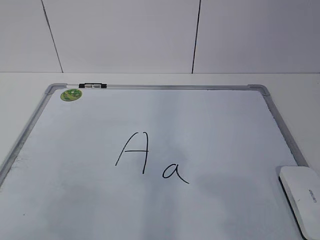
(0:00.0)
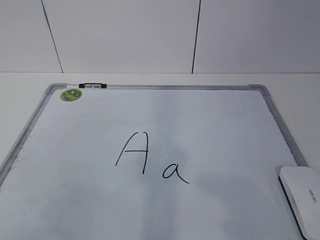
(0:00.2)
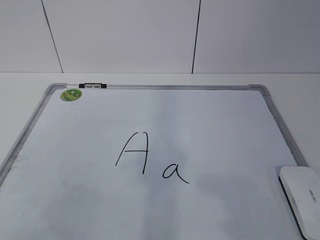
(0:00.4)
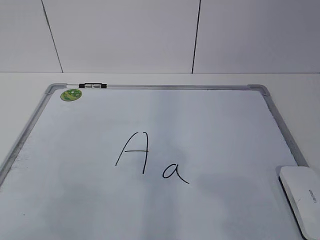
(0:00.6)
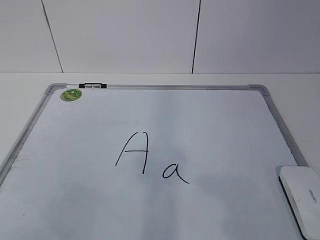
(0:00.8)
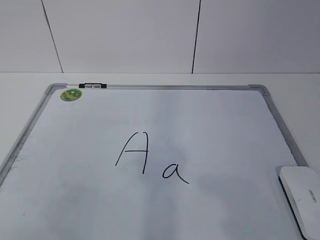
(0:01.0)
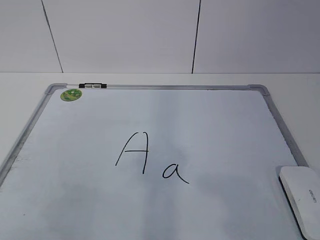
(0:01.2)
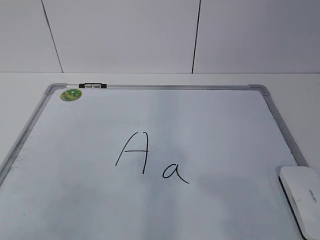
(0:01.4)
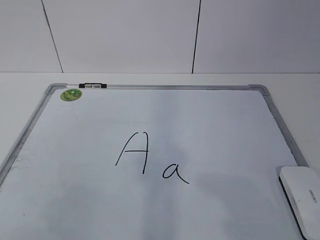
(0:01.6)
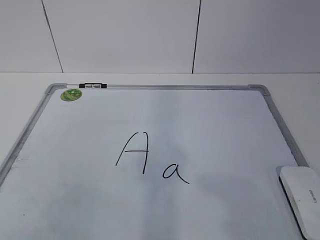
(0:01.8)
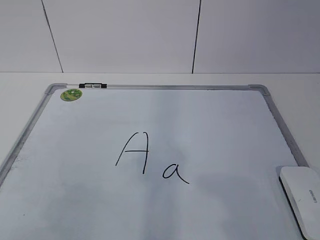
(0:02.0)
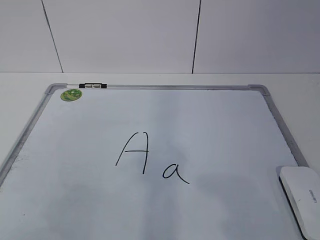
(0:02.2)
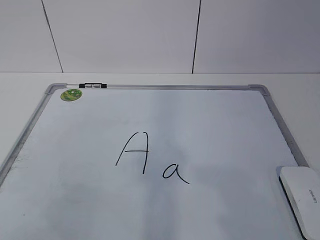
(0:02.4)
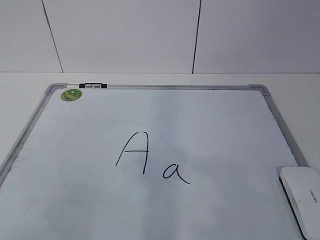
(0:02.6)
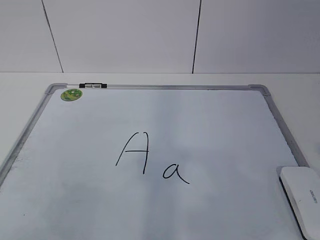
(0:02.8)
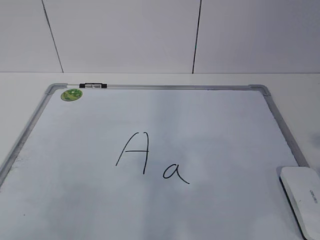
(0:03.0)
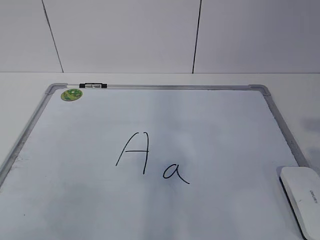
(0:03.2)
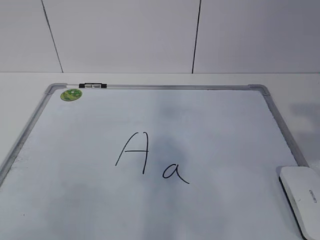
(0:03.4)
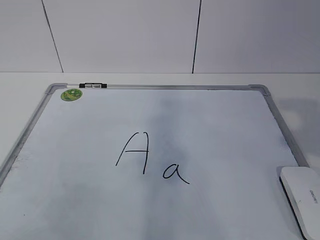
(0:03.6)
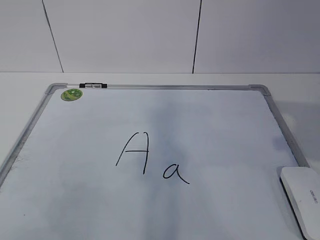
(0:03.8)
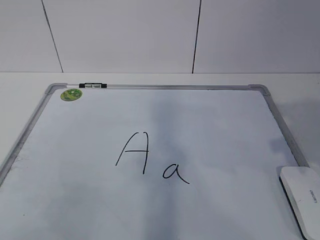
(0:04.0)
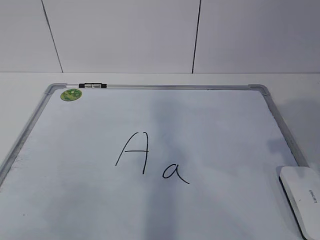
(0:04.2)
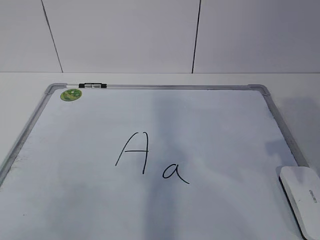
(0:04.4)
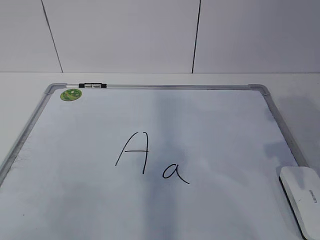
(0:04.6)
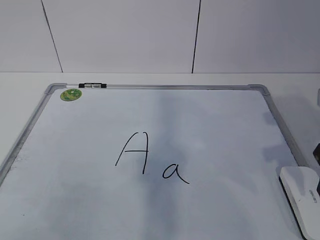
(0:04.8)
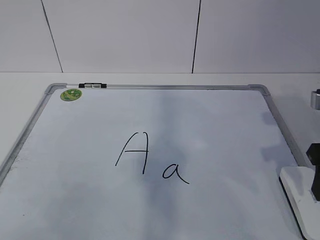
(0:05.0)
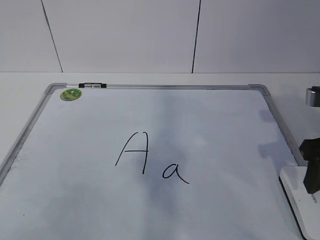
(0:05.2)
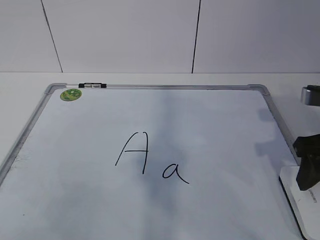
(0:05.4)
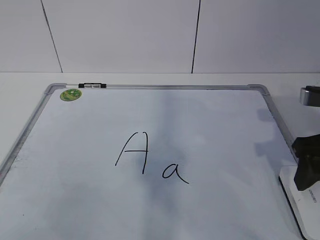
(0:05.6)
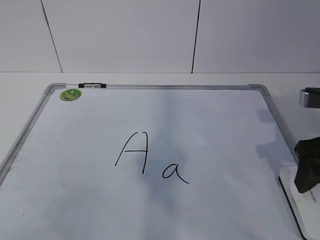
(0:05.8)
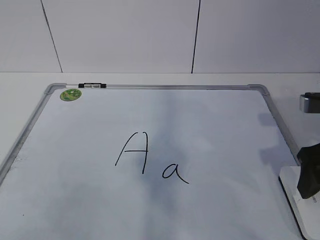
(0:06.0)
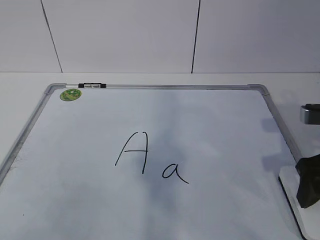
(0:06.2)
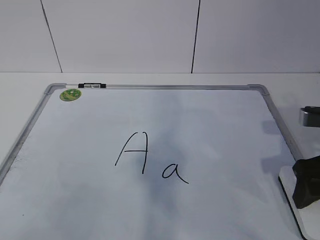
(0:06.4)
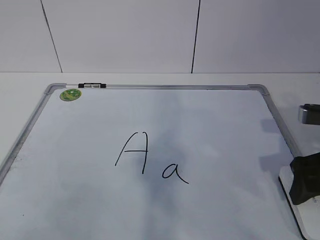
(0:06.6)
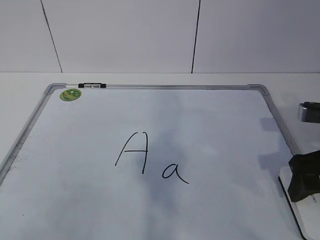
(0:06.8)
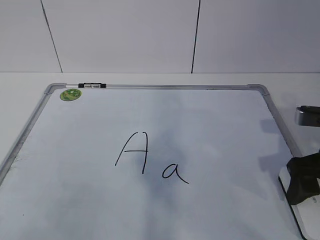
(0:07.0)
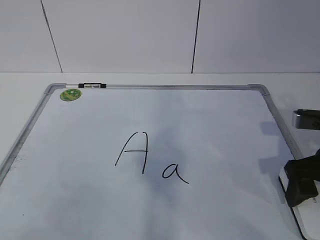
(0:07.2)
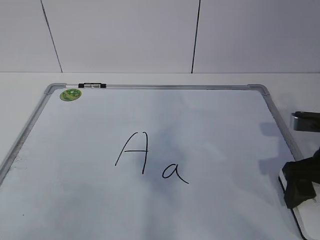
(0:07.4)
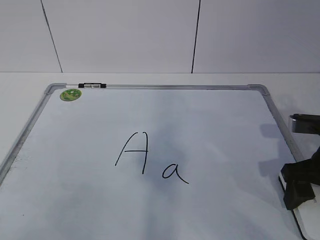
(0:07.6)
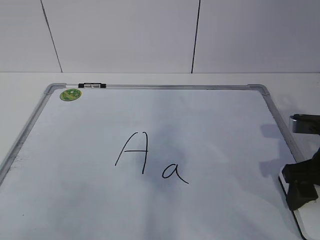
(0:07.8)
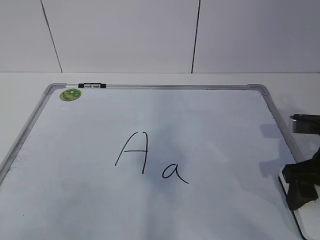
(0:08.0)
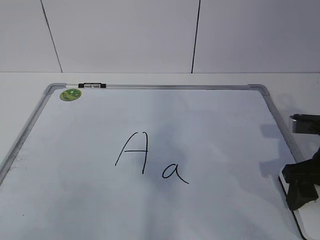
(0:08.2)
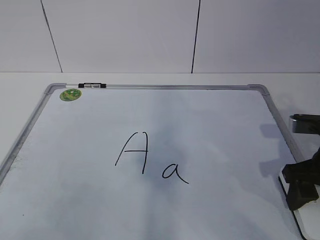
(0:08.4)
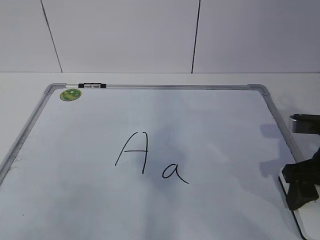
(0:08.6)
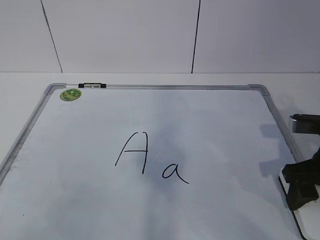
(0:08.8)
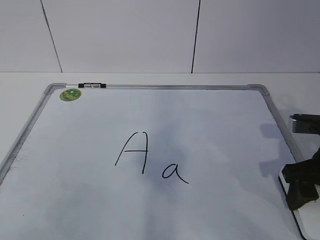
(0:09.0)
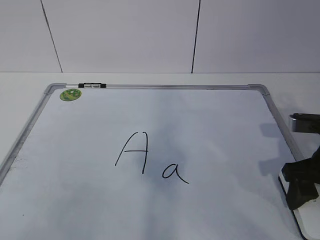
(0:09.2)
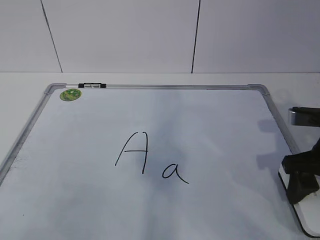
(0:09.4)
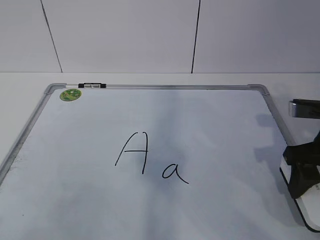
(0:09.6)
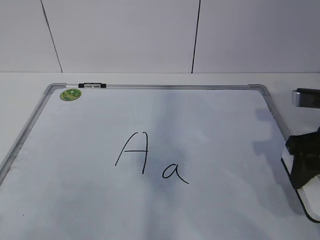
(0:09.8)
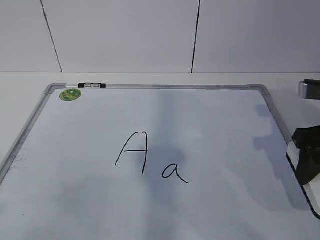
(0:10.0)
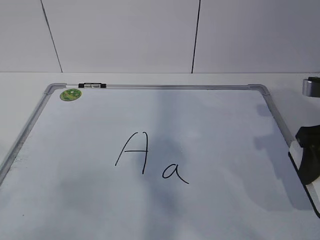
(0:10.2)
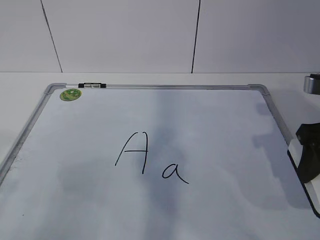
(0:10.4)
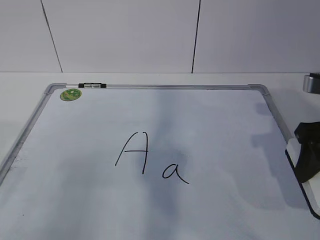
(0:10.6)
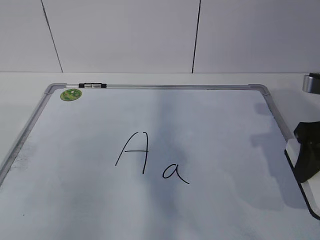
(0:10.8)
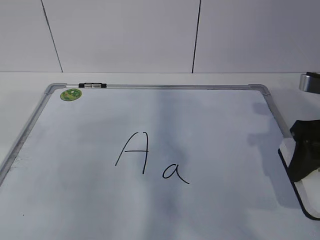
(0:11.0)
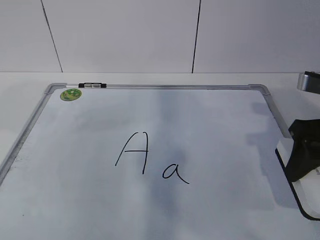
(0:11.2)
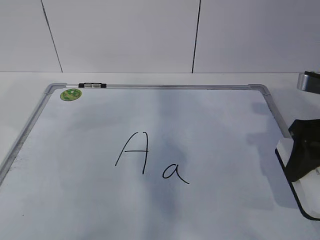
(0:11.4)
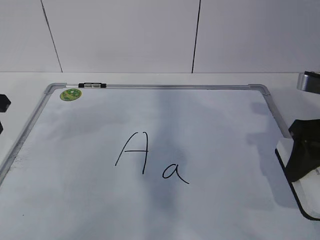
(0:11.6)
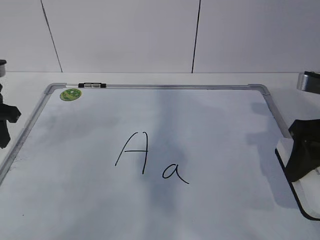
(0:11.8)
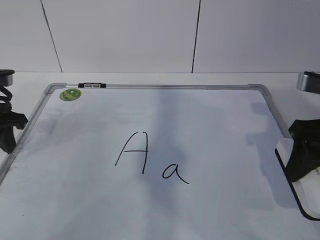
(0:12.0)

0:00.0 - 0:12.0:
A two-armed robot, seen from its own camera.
Task of the whole recording: pick up the eraser on the blackboard and erase the letter "a".
Step, 0:00.0 - 0:07.4: Grab the eraser with your right hand.
0:03.0 - 0:04.4: The right gripper heads forward, covering some 15 cm.
0:04.4 - 0:06.0: The right gripper moves downward, approximately 5 cm, and opens its fingers.
0:06.0 - 0:07.6: The grippers stay close to where they were, moving slightly.
0:09.0 - 0:10.4: The right gripper travels upward by about 5 cm.
0:10.4 - 0:12.0: The left gripper moves forward, some 25 cm.

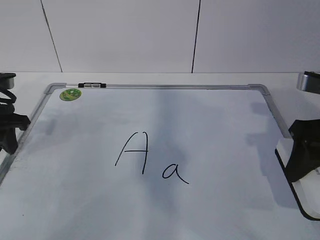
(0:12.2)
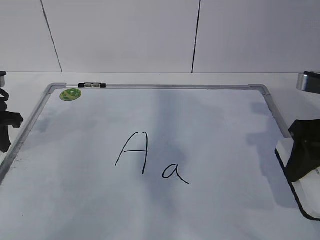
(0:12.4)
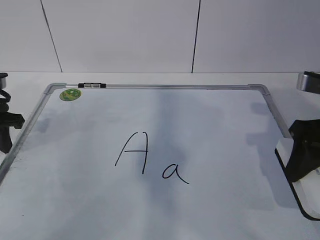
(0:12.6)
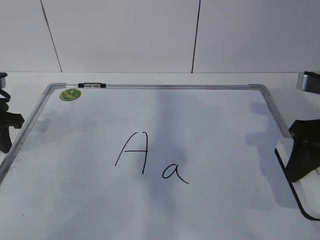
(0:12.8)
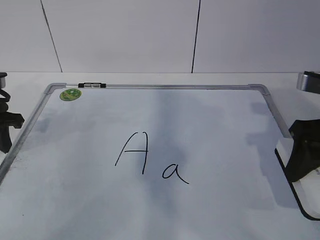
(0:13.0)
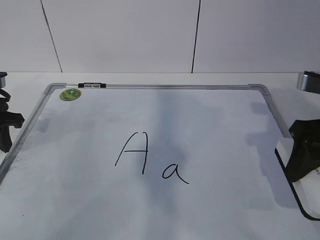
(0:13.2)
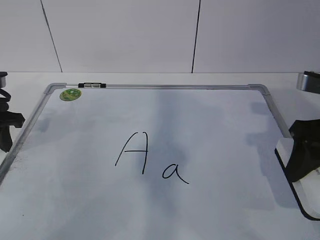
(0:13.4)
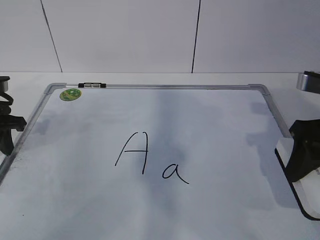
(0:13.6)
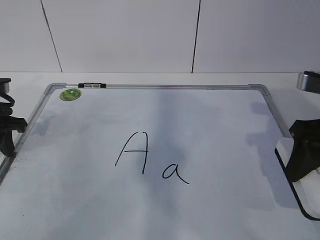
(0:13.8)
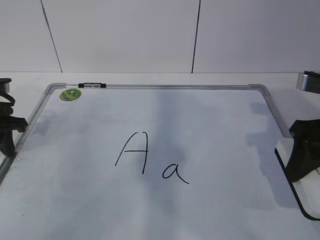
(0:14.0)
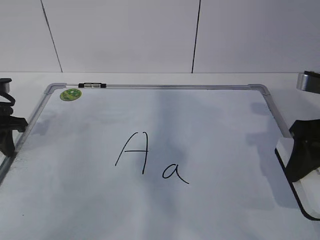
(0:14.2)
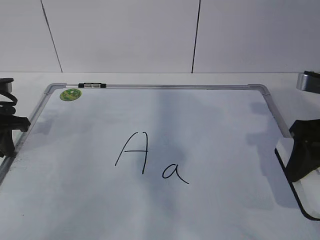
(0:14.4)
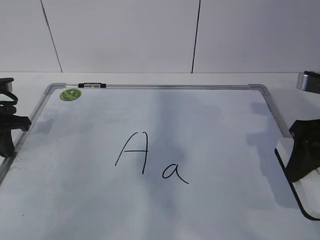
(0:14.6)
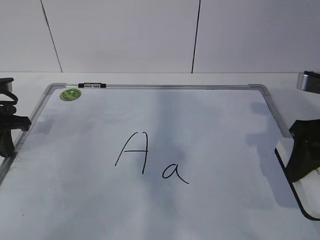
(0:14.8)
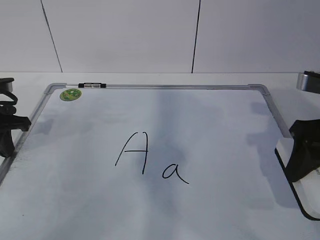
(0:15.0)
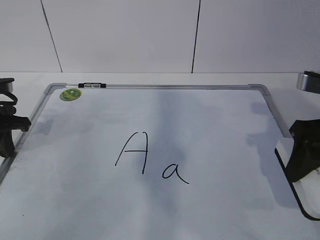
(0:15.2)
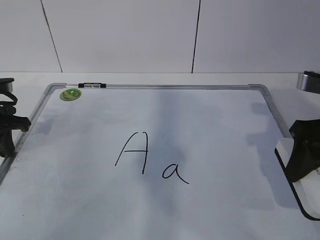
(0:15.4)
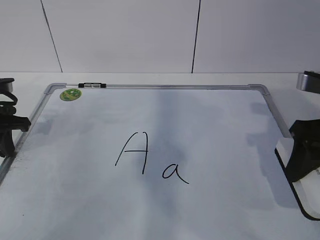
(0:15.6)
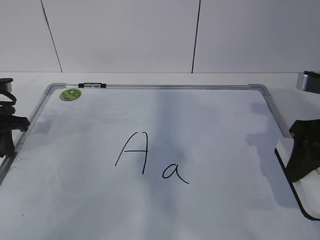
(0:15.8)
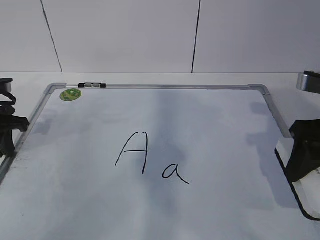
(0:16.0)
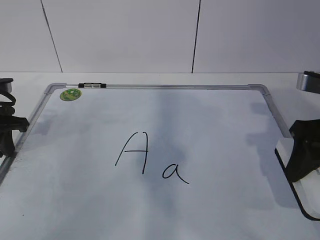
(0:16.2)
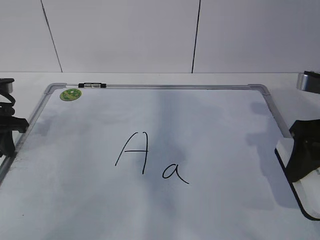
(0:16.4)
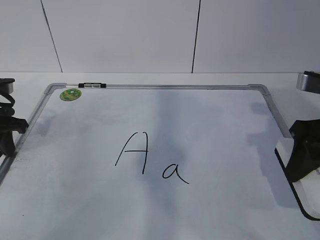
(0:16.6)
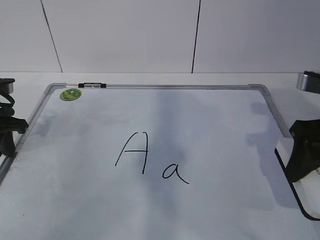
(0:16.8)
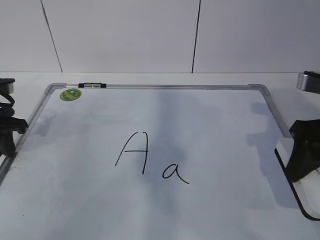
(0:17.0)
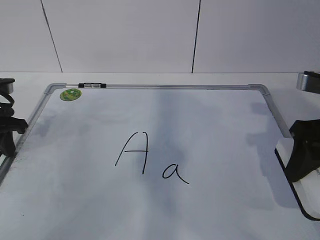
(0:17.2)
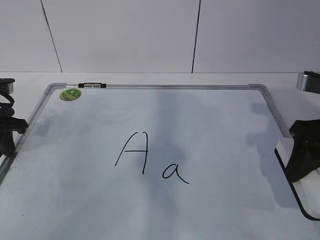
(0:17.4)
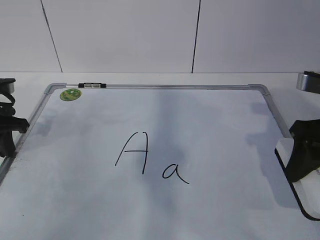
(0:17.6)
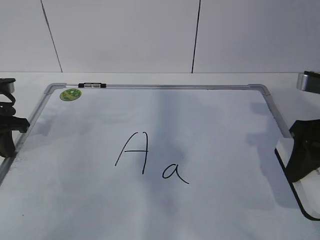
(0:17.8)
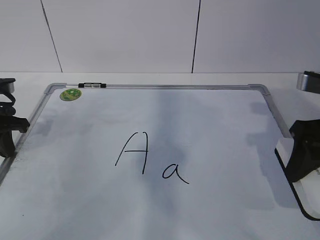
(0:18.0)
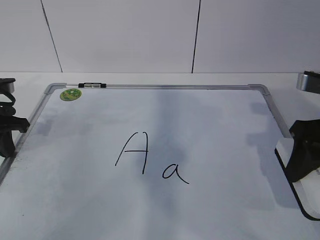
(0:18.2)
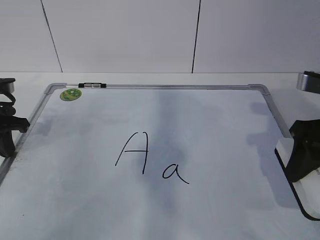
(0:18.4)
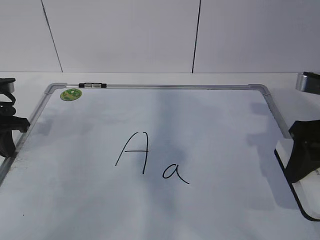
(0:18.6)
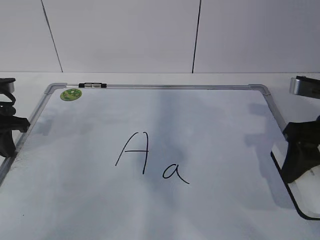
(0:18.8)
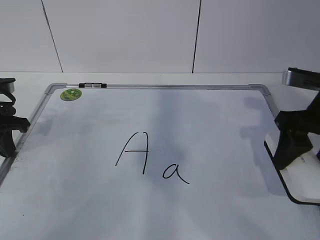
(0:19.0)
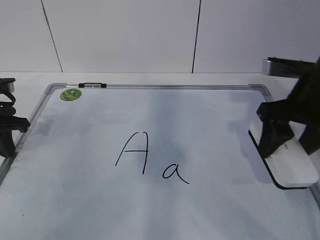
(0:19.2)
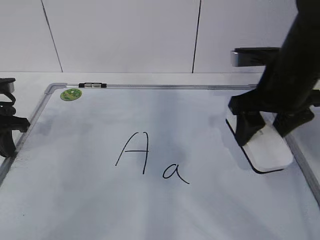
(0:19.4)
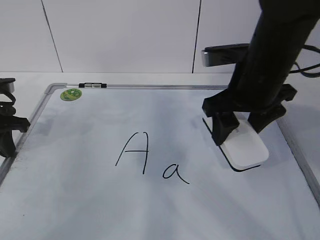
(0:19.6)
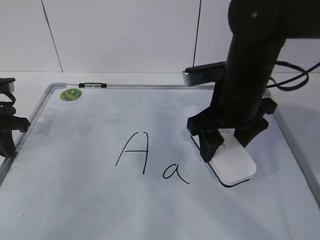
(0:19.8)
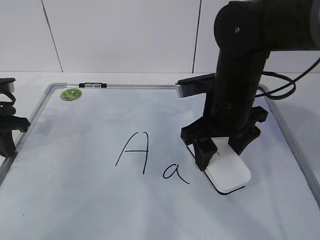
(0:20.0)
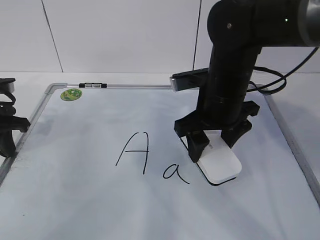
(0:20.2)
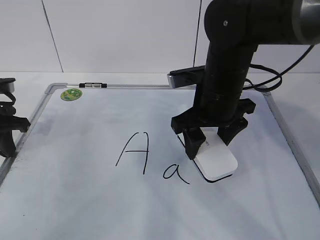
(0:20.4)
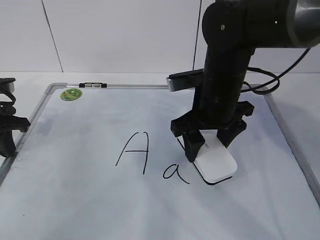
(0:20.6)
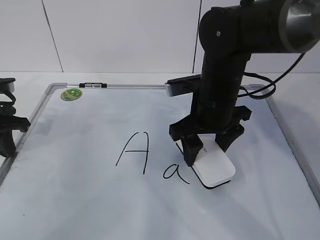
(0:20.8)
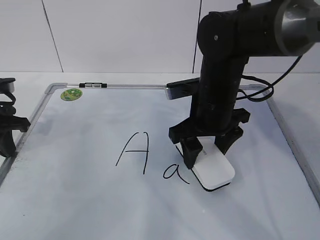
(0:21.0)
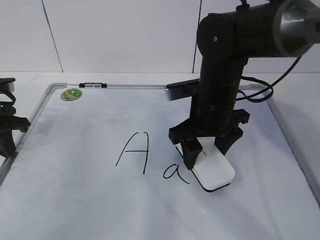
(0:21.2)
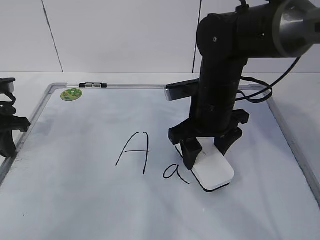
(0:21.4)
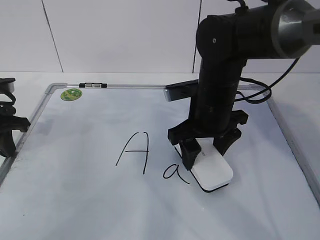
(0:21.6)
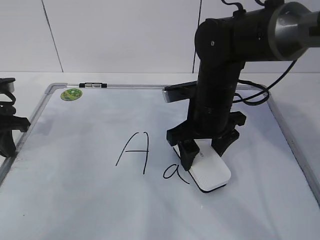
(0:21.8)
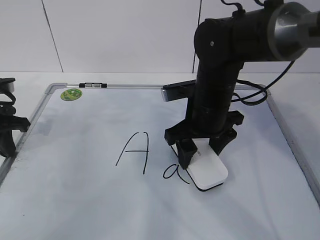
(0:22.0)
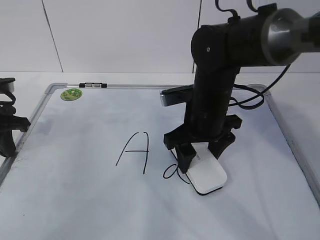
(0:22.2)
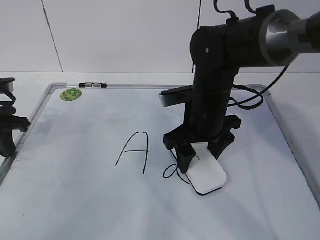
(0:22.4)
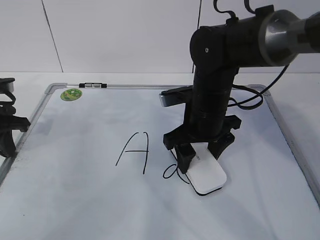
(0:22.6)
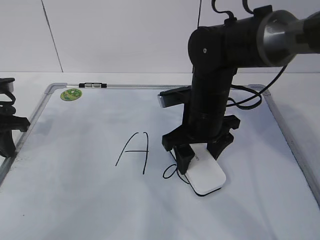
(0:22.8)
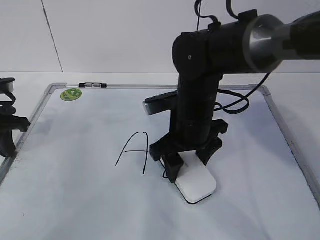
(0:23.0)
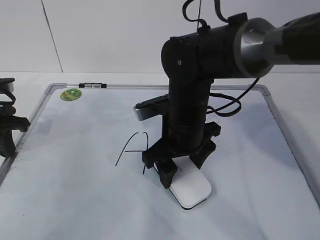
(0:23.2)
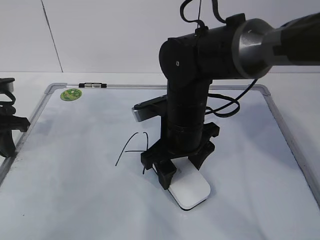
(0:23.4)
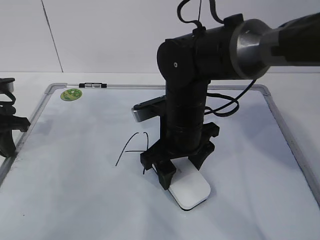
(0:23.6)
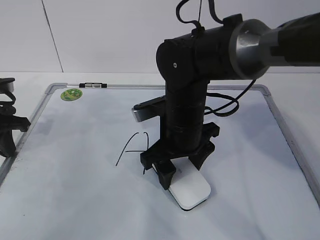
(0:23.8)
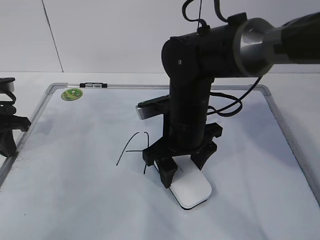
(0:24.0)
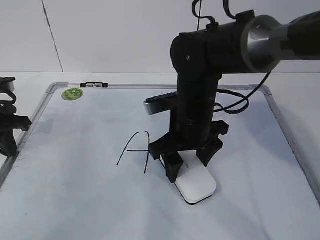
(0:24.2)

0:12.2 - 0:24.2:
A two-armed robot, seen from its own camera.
Task of the whole recording: pick up the eraser on the blackboard and erase the letter "a".
Step, 0:12.2 - 0:14.6: Hold the drawing board steady with your left hand.
Step, 0:14.8 - 0:20.4: Erase the letter a with your right hand.
0:12.2 - 0:13.8: The grippers stay close to where they were, moving slightly.
0:13.8 - 0:15.2: The left gripper closes up.
0:18.2 - 0:19.8: The right gripper travels to the left and forward by about 15 cm.
0:19.8 - 0:21.2: The grippers make only small movements.
0:21.2 - 0:24.2: There are only small adjustments of the grippers.
